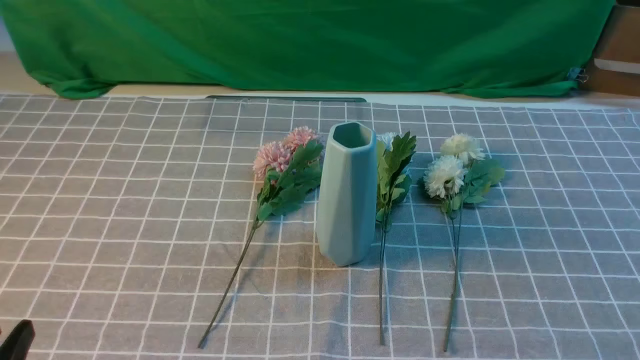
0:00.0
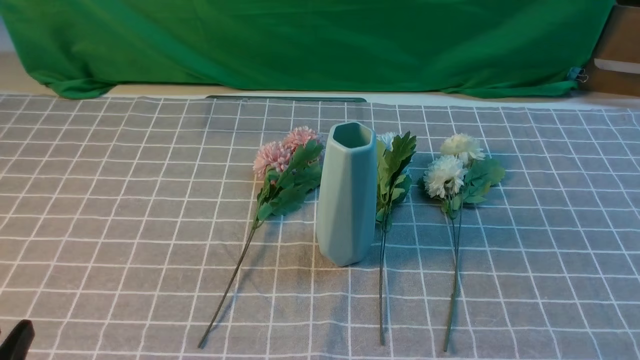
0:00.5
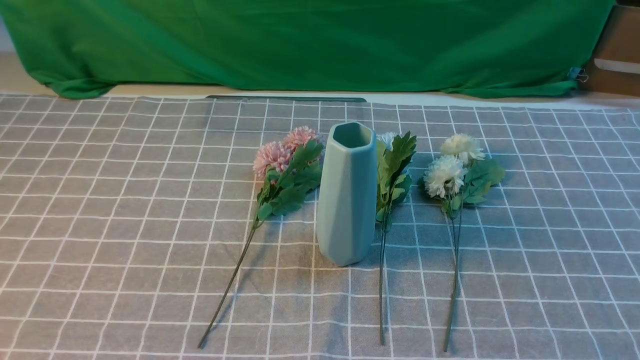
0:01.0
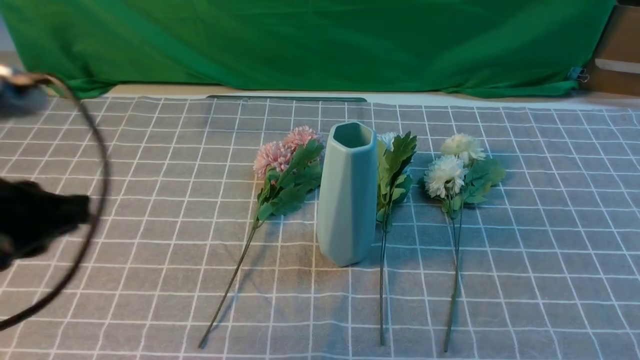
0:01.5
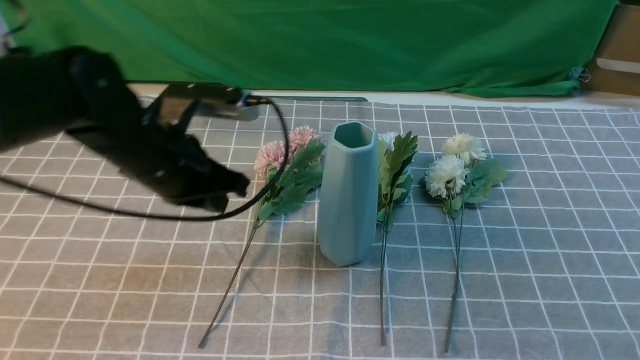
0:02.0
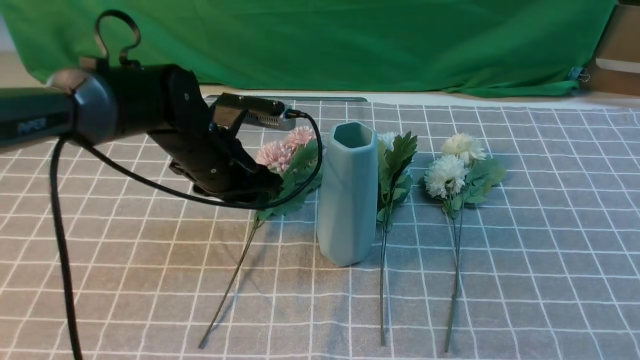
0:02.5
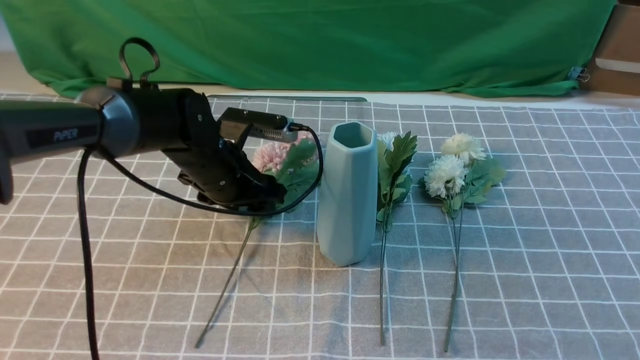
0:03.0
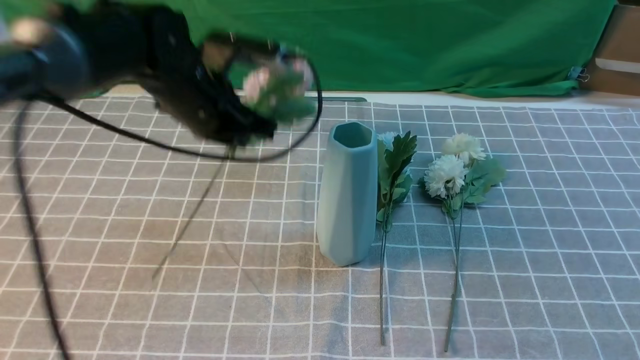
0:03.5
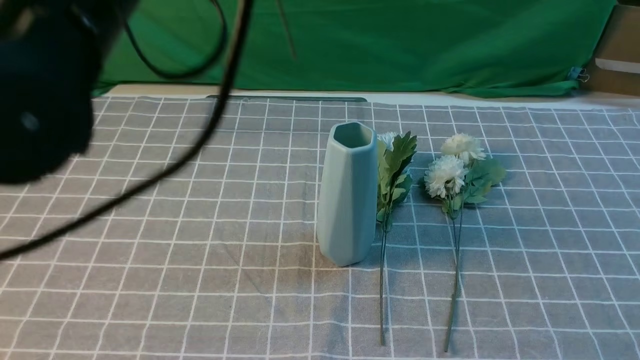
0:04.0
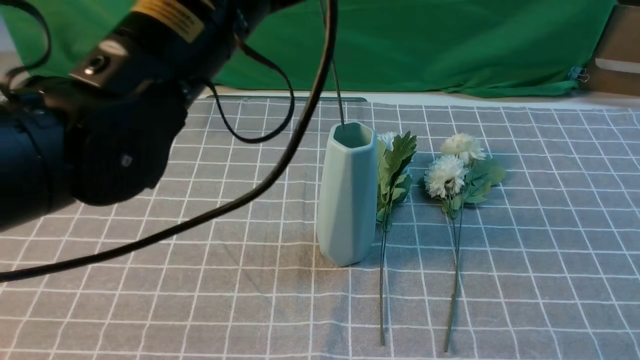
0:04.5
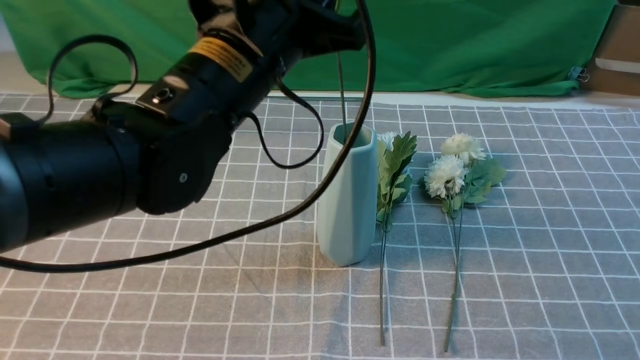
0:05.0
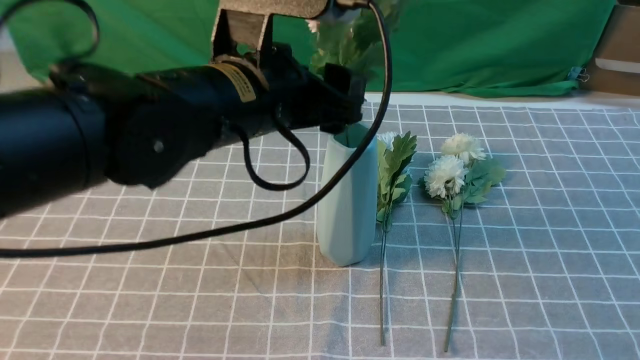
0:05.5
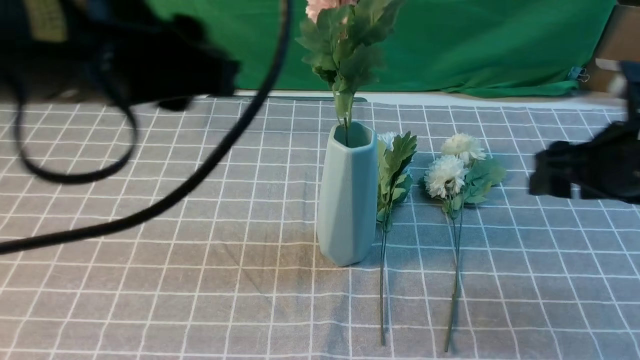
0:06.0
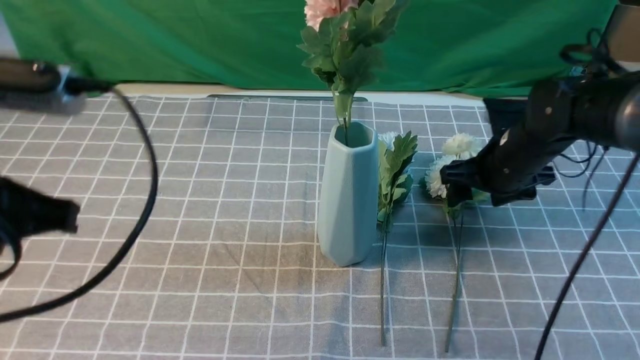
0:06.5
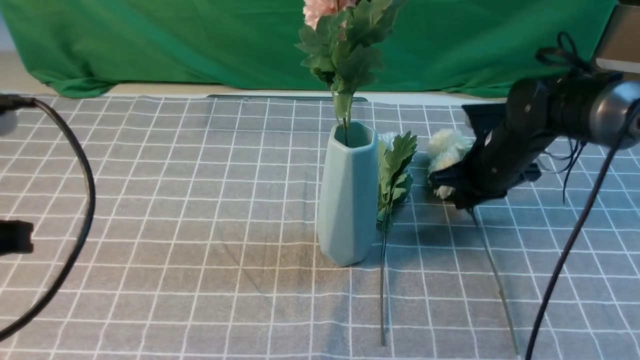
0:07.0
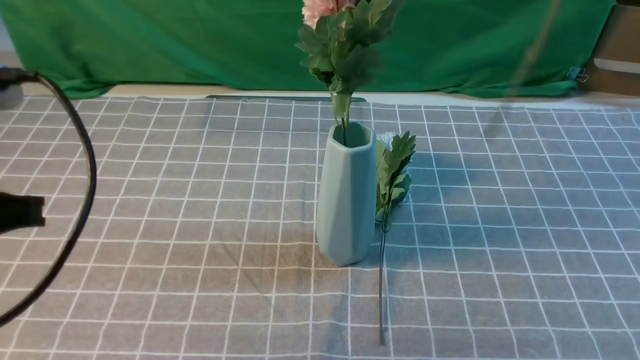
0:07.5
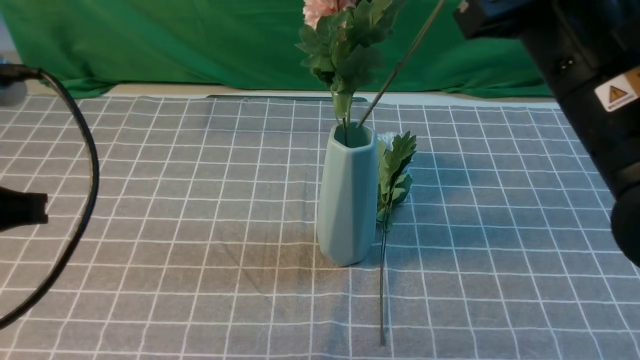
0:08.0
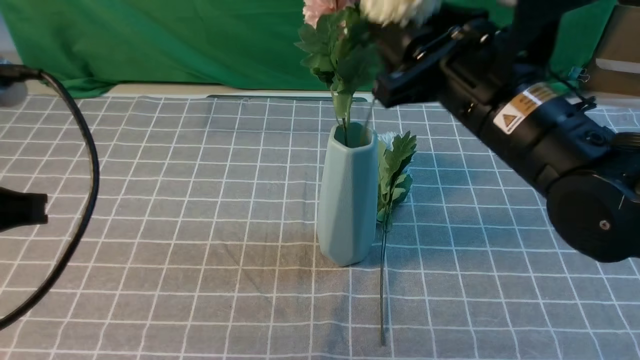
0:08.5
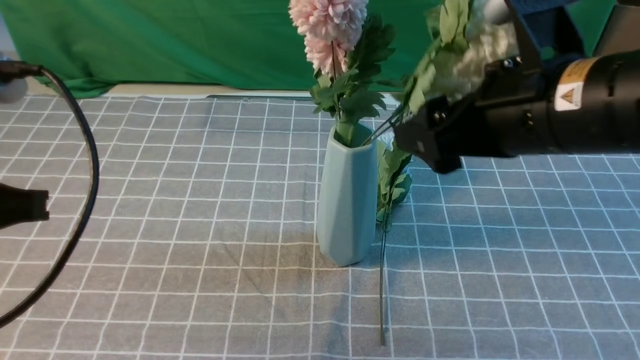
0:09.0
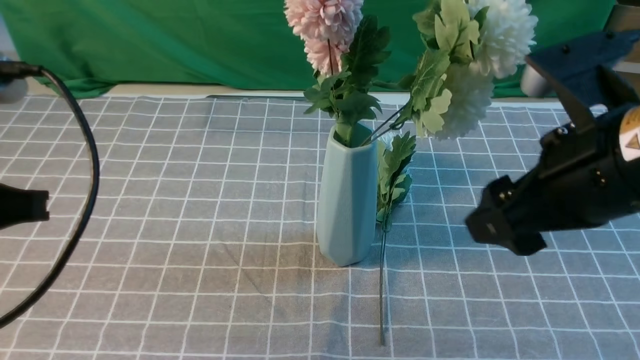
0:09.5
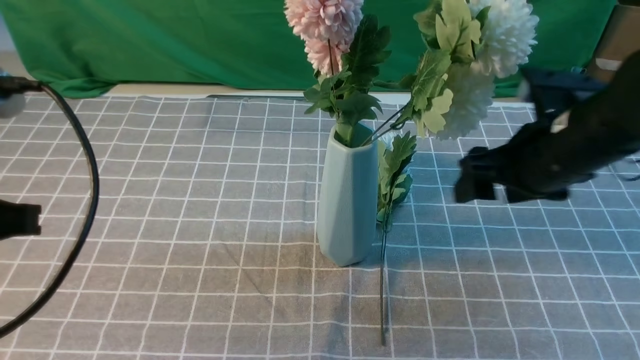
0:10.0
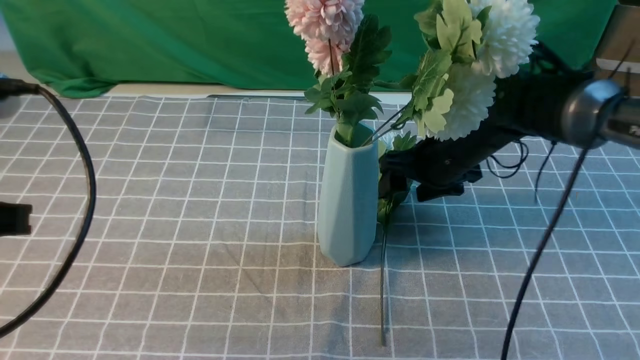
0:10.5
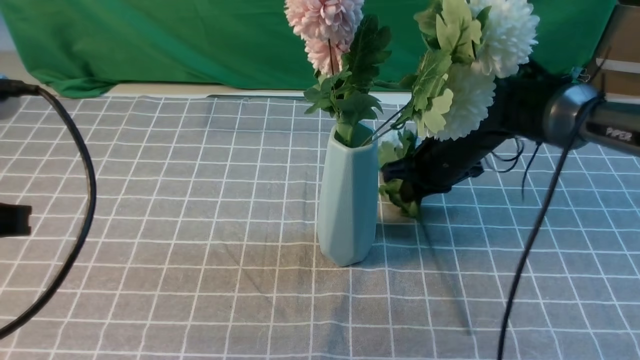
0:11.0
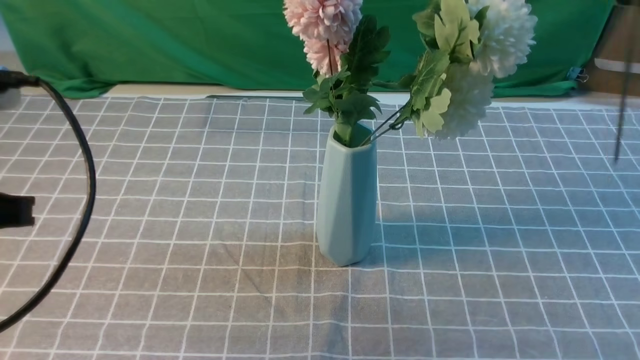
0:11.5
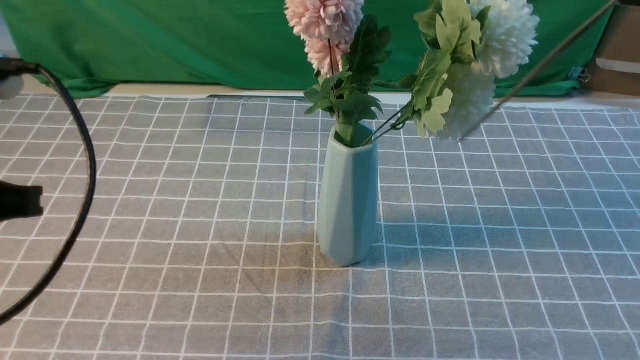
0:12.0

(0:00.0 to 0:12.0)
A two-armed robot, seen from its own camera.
Task of the whole recording: insert the flowers into the vase on the table with the grey tablecloth.
Step, 0:00.0 - 0:03.0: use the left arm to grab a bunch of fresh flowers.
Step, 0:03.5 - 0:05.5: use the left arm to insert the flowers into the vase.
Step, 0:06.0 - 0:07.0: use the right arm to grab a bunch of fresh flowers.
Step, 0:07.5 - 0:08.5: use the right arm to insert the flowers into the vase.
Step, 0:09.5 - 0:11.0: use the right arm to grab a bunch of fresh flowers.
0:00.0 - 0:02.0: The left gripper is displaced forward by roughly 30 cm, and closes its fingers.
0:02.0 - 0:04.0: The right gripper shifts approximately 10 cm upward and forward. Meanwhile the left gripper shifts some 20 cm upward, and opens and closes again.
0:04.0 - 0:06.0: The right gripper travels forward by approximately 20 cm, and opens up; the left gripper moves backward, roughly 5 cm, and opens.
0:06.0 - 0:08.0: The right gripper goes up and down, about 25 cm each way, reversing 2 times, and closes. Meanwhile the left gripper goes some 10 cm to the left, downward and backward, and closes up.
0:08.0 - 0:10.0: The right gripper moves downward and forward, about 15 cm, and opens its fingers.
0:10.0 - 0:12.0: The right gripper moves up and down over roughly 30 cm, changing direction 2 times, and closes.

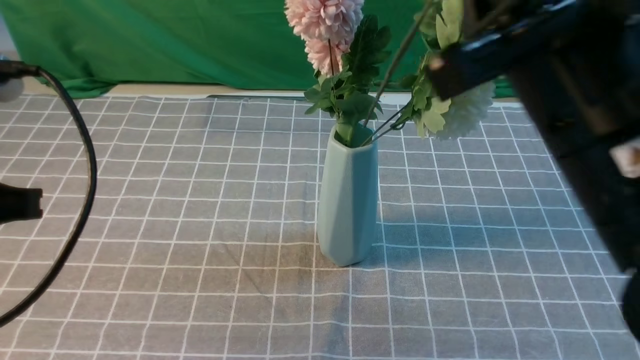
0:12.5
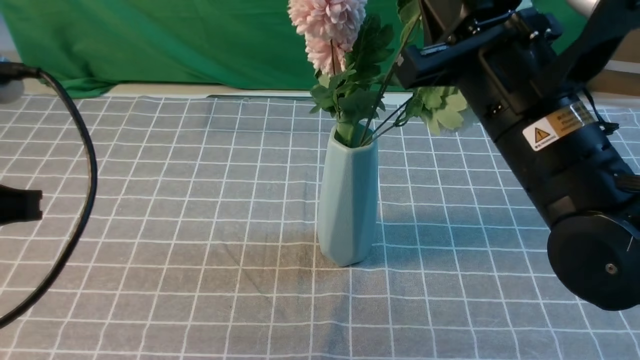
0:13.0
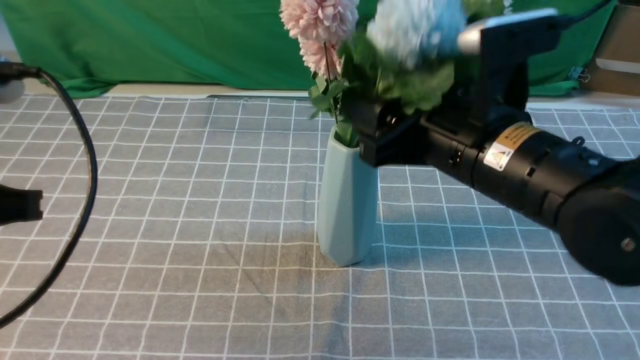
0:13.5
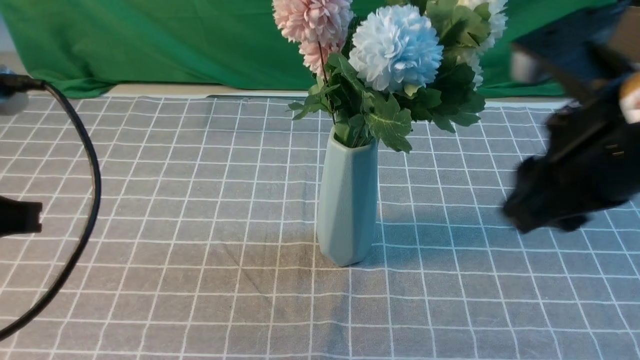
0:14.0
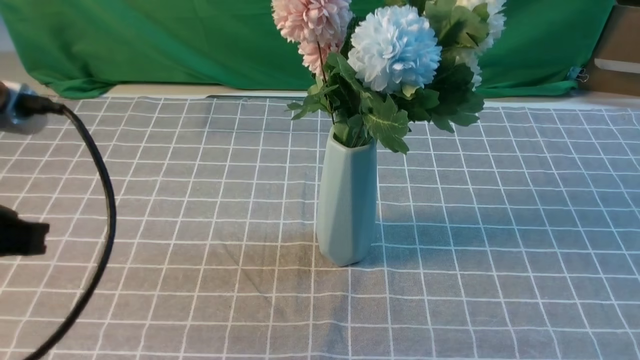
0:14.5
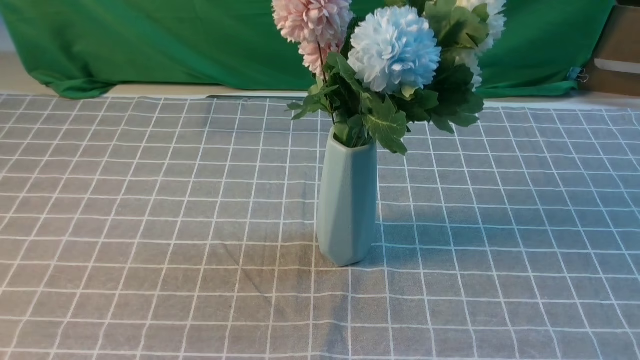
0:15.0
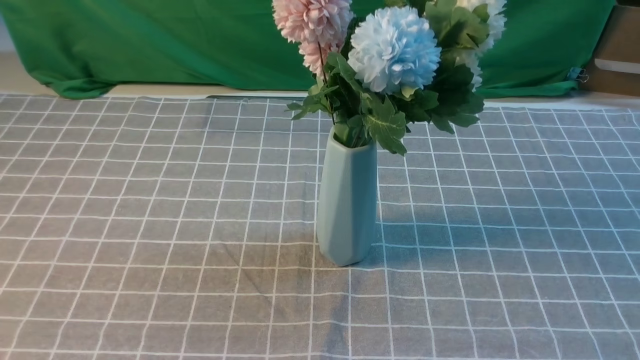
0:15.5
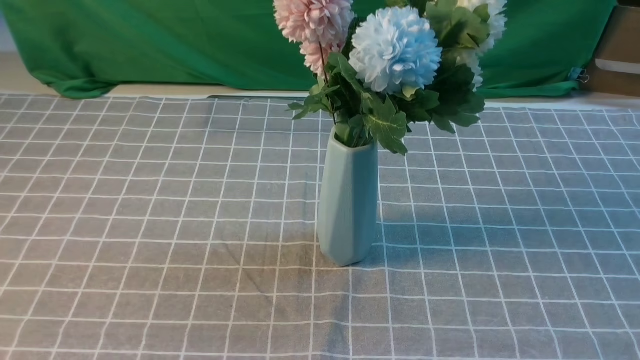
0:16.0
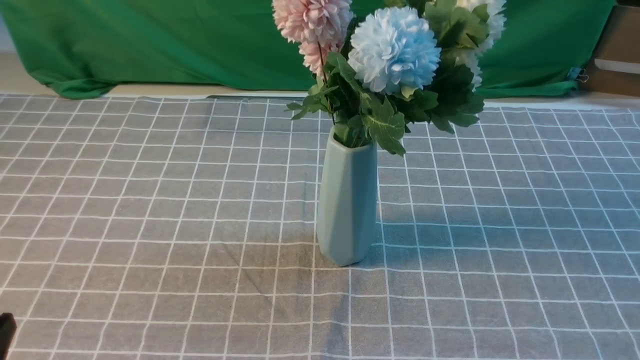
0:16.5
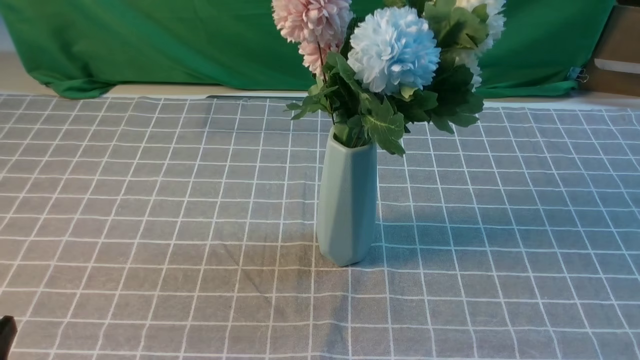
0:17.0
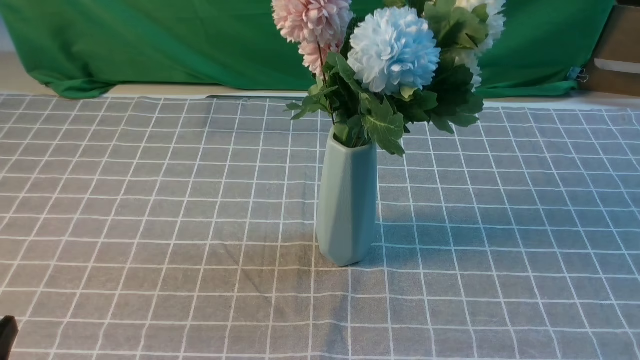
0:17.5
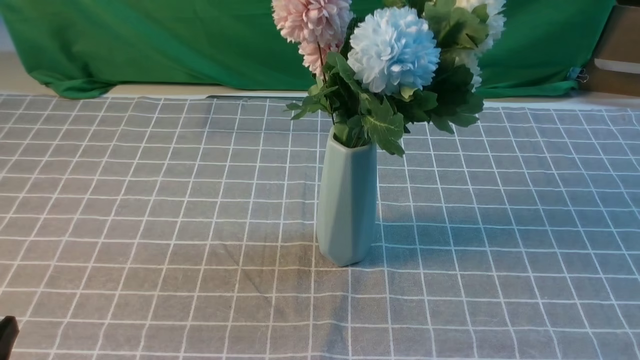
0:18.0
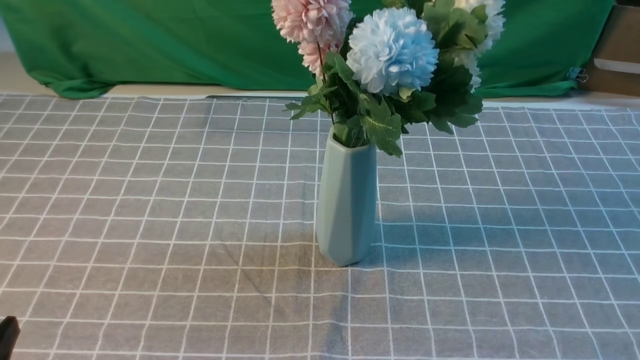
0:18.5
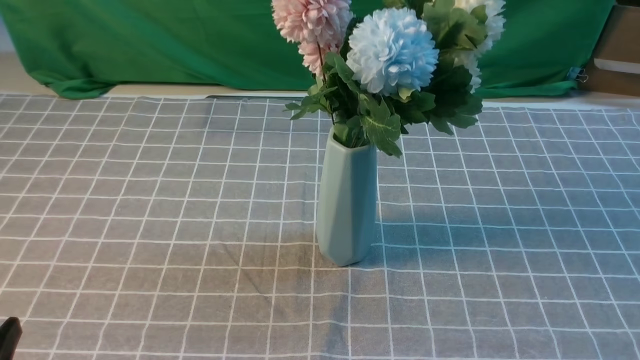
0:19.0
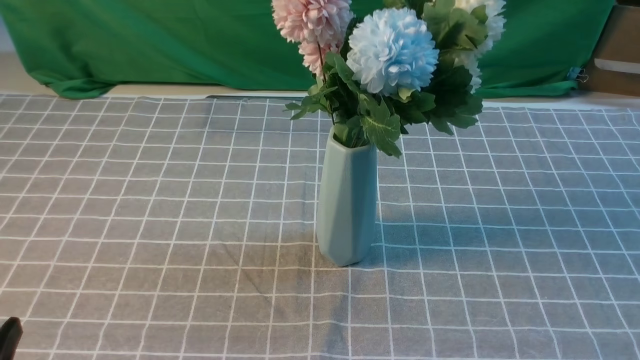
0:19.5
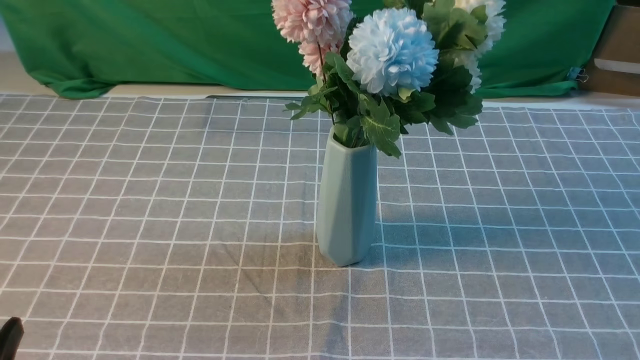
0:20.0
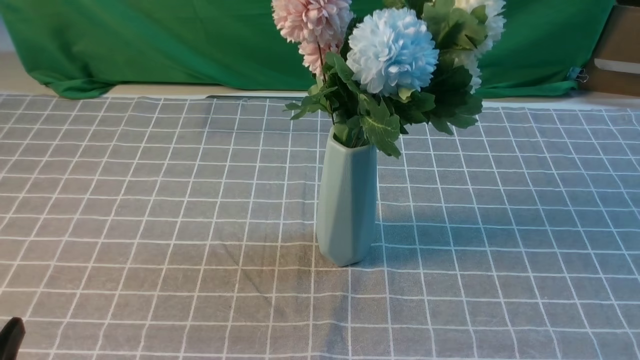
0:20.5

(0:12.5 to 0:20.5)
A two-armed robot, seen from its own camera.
Task of the whole recording: insert the flowers into the vase on the table with the grey tablecloth.
0:12.5 - 0:14.5: The right gripper is displaced to the right and backward by approximately 20 cm, and opens, then closes once more.
0:14.5 - 0:16.5: The left gripper heads downward and backward, covering about 15 cm.
0:16.5 - 0:18.5: The right gripper goes some 10 cm downward.
